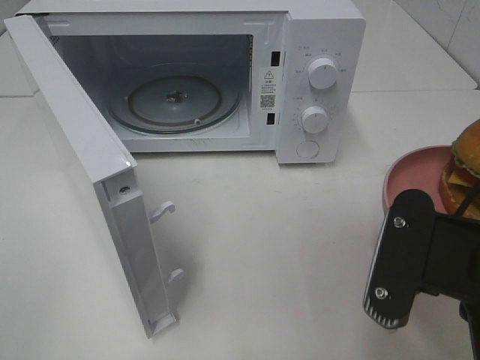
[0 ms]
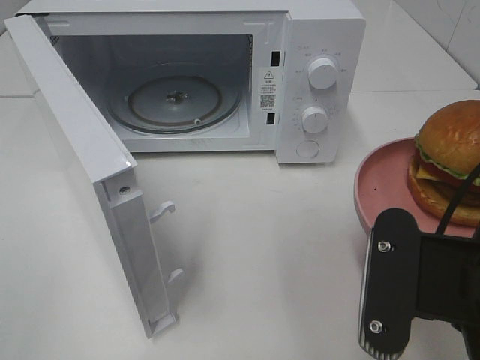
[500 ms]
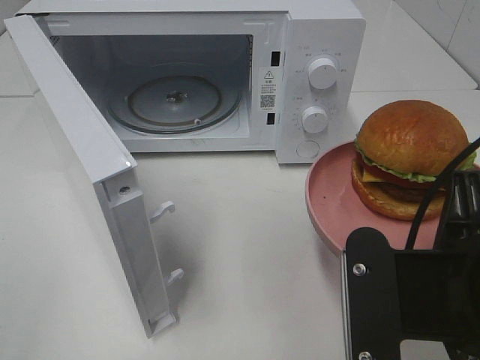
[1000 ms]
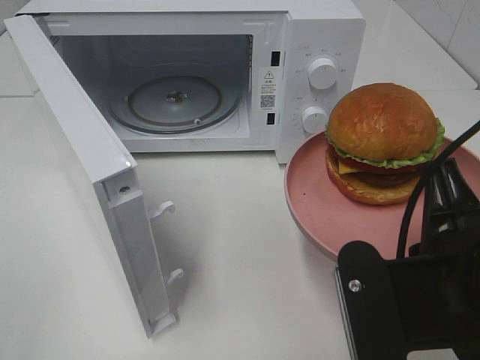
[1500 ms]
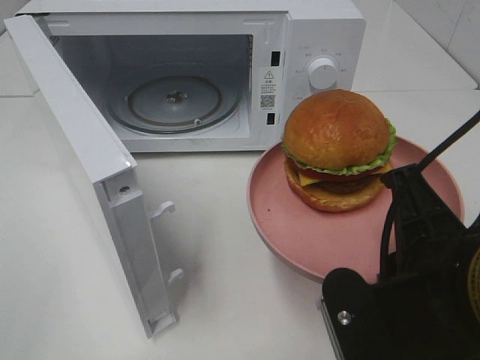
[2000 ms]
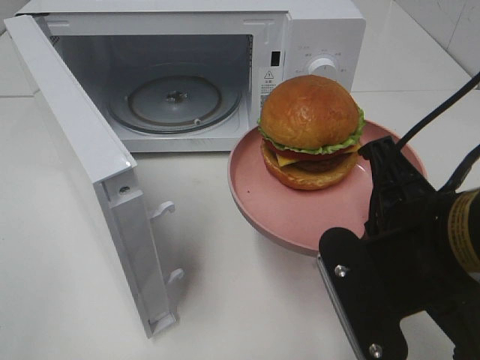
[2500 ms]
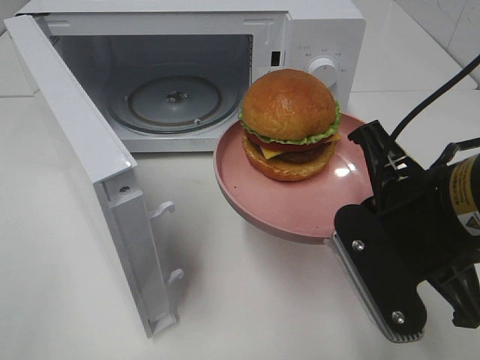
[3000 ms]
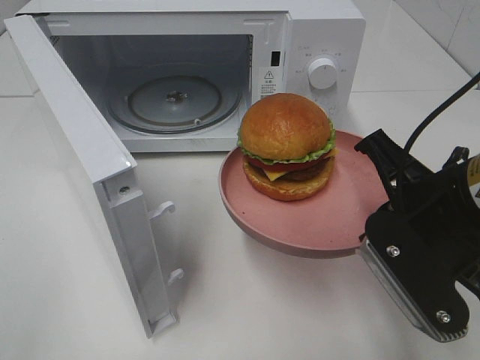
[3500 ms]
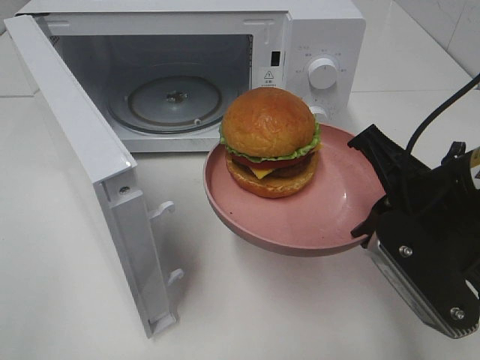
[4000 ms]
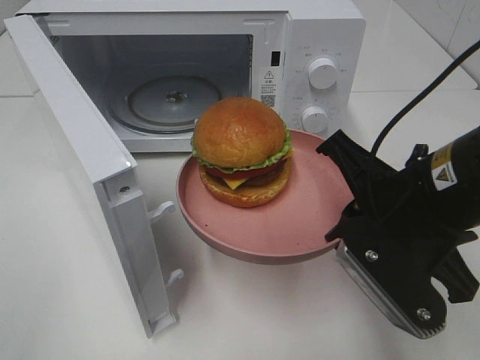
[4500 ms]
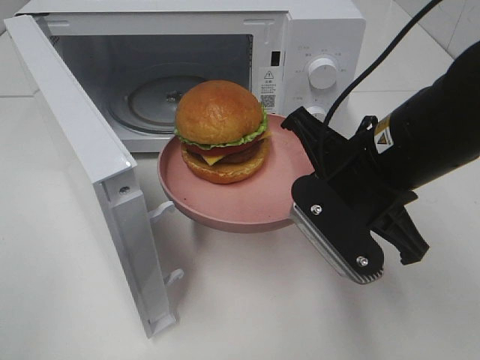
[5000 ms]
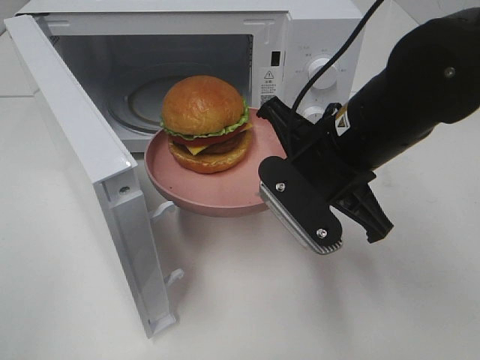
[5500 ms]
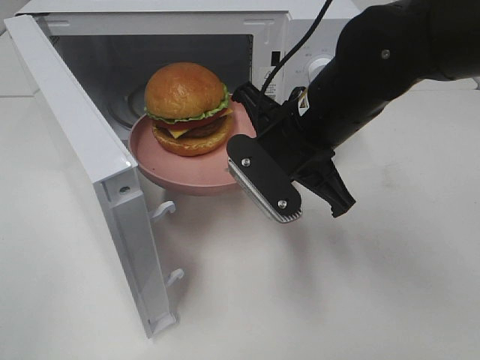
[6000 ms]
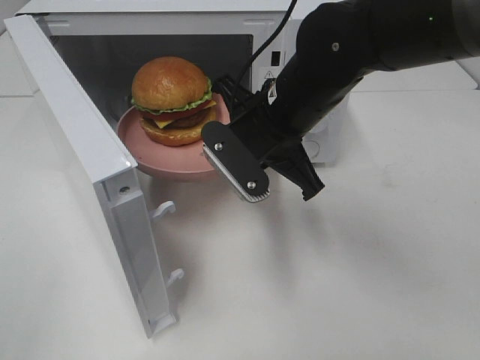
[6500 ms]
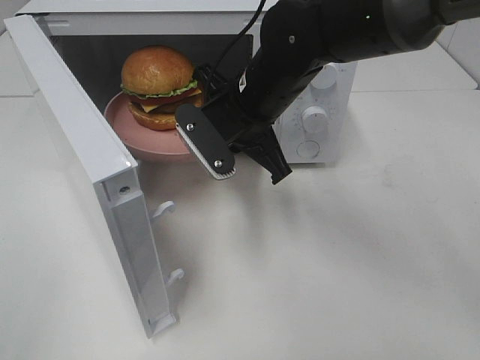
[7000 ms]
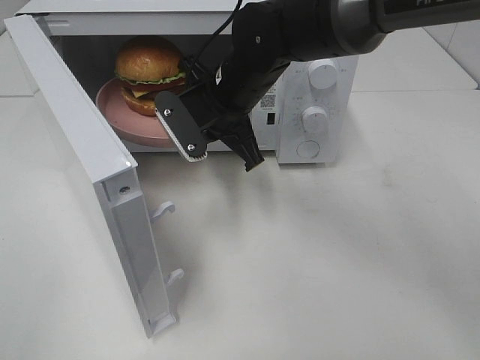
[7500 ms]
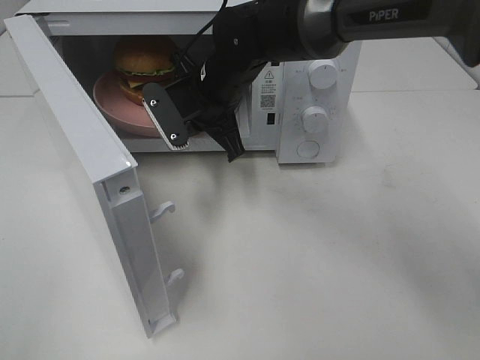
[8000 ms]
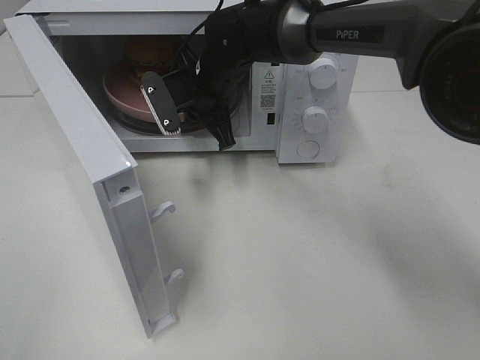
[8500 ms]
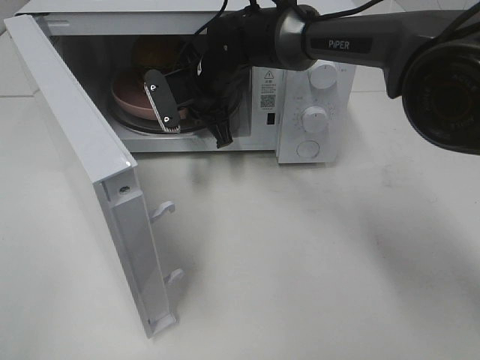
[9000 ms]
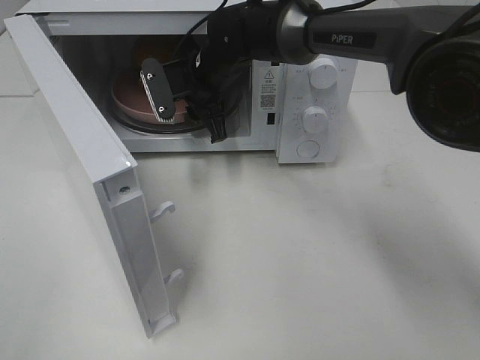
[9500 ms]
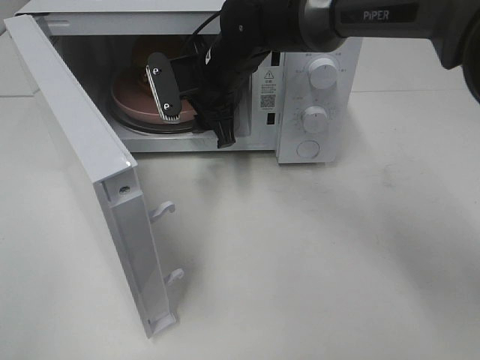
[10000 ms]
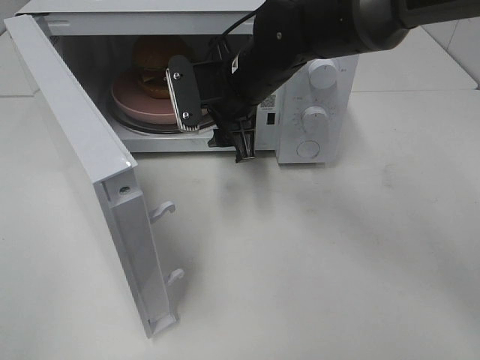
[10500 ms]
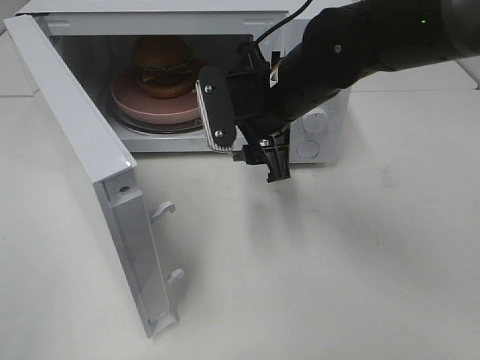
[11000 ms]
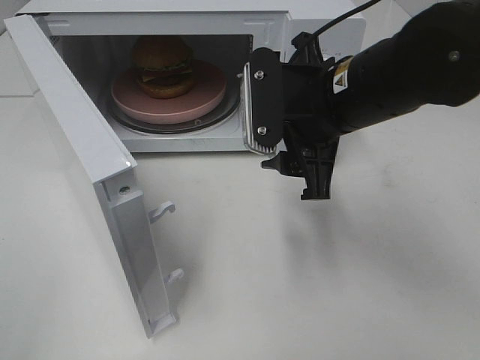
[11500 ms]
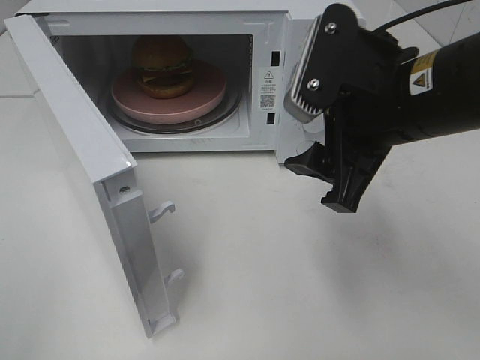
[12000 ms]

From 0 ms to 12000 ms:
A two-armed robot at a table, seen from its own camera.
Task of the whole recording: Heat the burger.
Step, from 0 ms to 9000 ms: Right hand: place the plate in the microwave.
From 2000 ms to 4000 ms: The right gripper goes approximately 10 cm forward.
From 4000 ms to 6000 ms: The right gripper goes about 15 cm forward and to the left.
From 6000 ms to 8000 ms: The right gripper travels forward and to the left by about 15 cm.
From 8000 ms to 10000 ms: The right gripper opens its fingers.
From 10000 ms to 12000 ms: The right gripper shifts roughly 25 cm backward, to the right and upward.

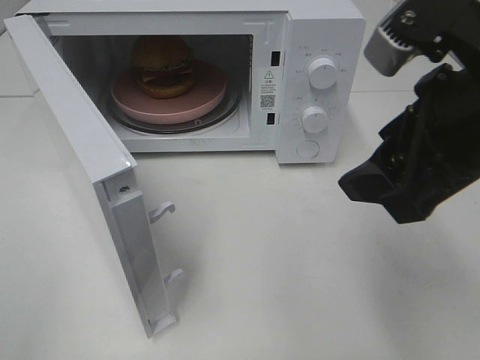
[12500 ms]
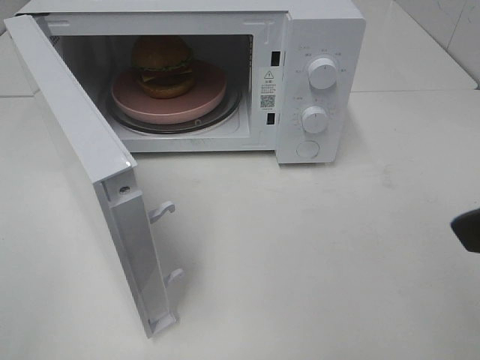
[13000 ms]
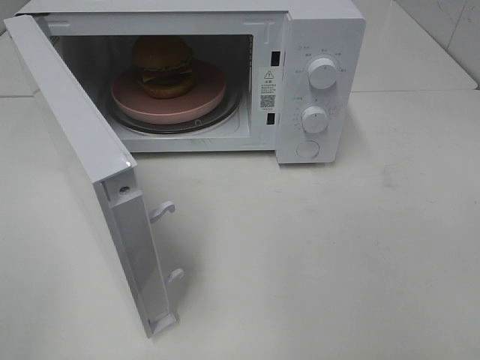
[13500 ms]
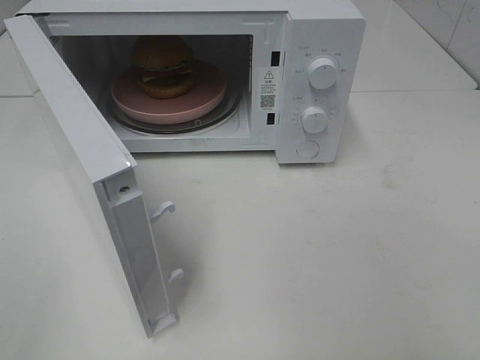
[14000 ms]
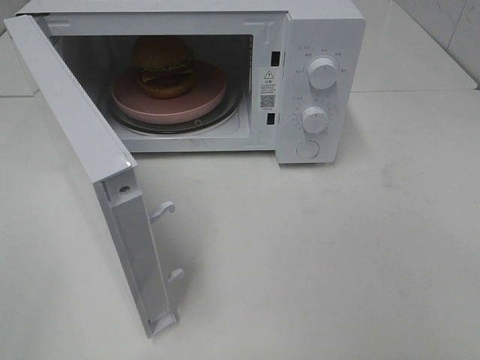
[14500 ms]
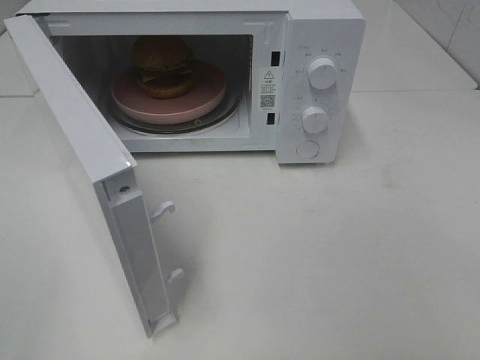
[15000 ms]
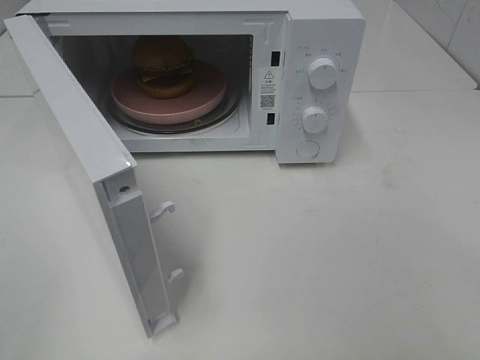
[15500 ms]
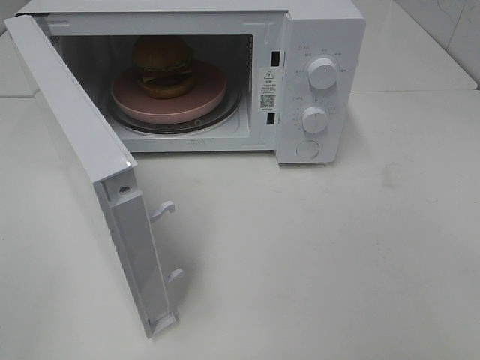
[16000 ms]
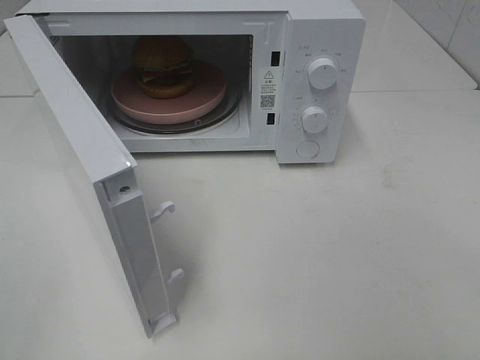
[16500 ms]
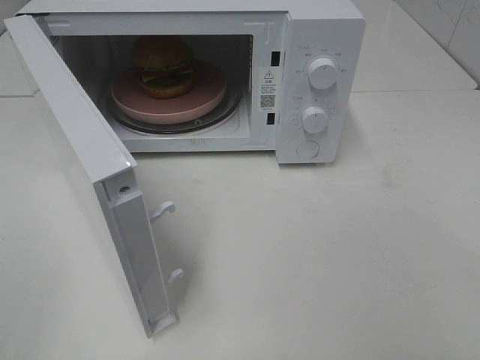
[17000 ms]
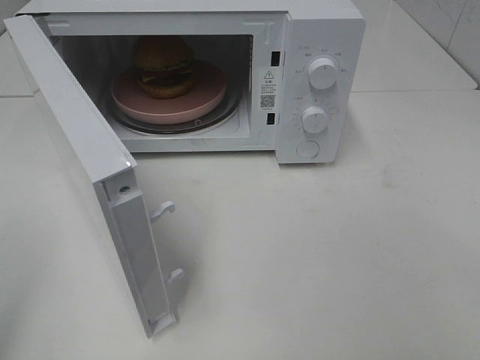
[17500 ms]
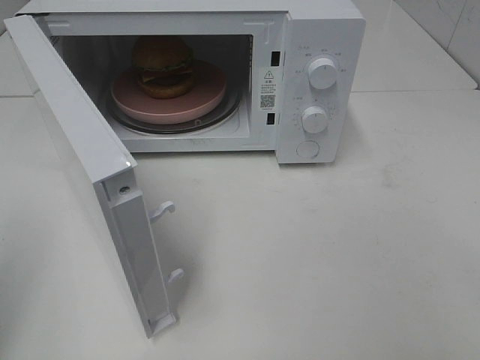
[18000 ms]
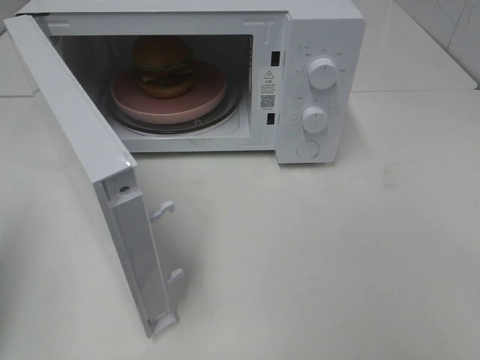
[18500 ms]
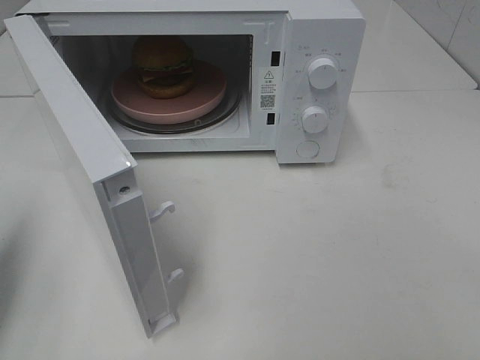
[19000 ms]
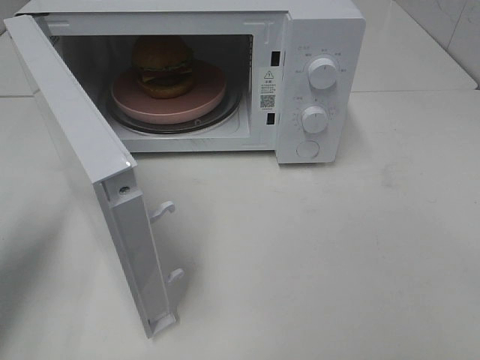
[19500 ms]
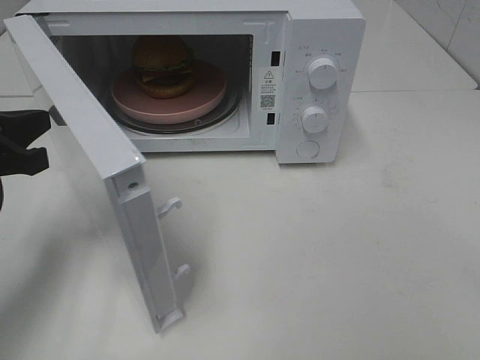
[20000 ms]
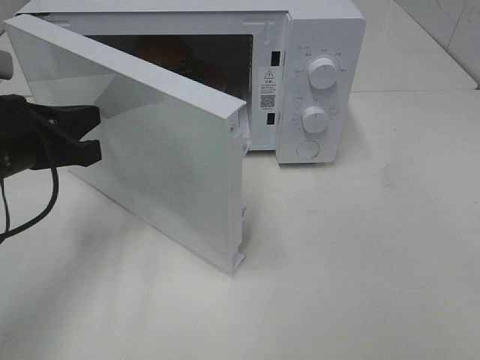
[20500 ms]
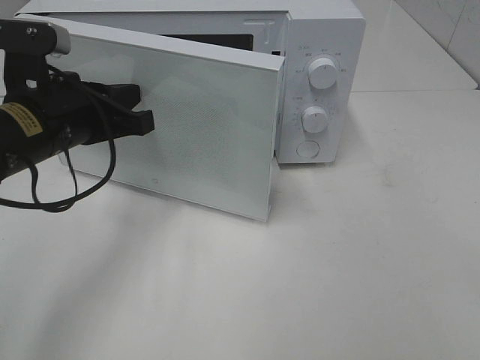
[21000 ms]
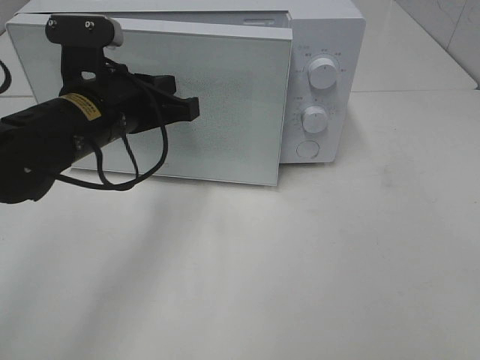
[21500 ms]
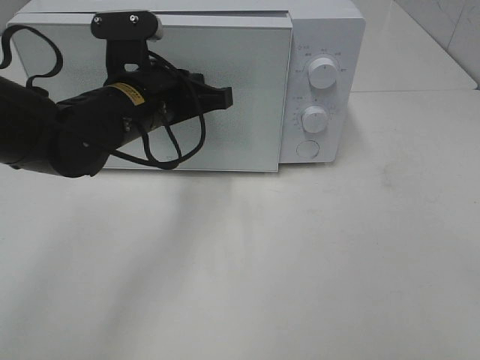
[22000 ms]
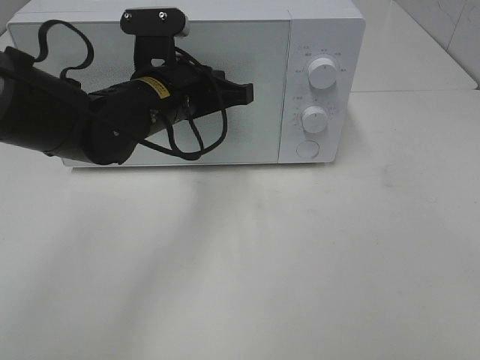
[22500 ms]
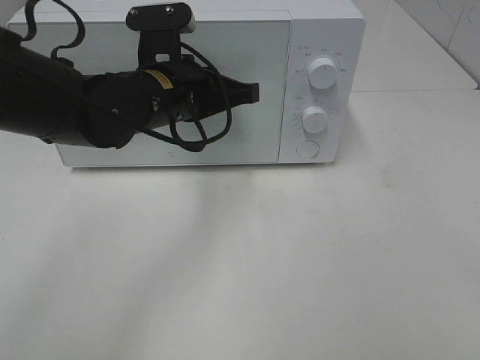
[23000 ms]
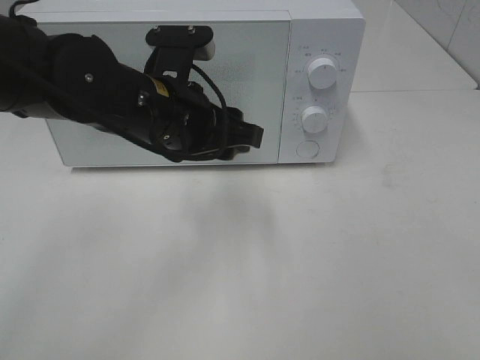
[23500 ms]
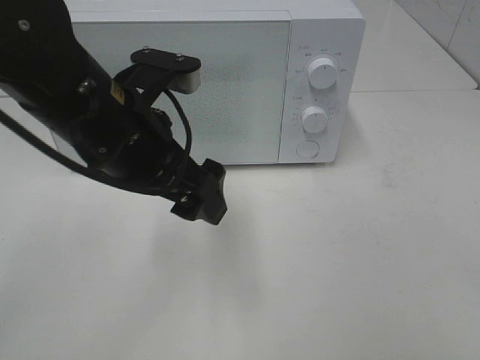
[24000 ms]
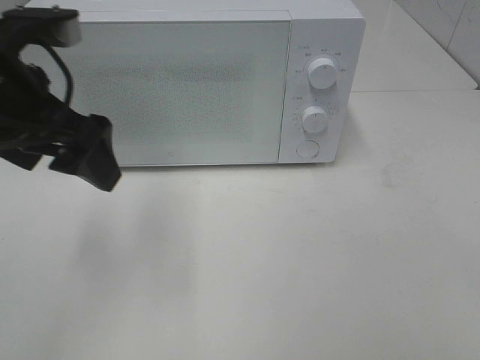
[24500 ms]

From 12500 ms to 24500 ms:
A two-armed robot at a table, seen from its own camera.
Task of the whole recording: Heat the burger.
Step, from 12500 ms to 23000 ms: Left hand: close the microwave door.
From 12500 ms to 14500 ms: The right gripper travels backward and to the right by some 20 cm.
From 16500 ms to 18500 ms: The left gripper travels forward by roughly 15 cm, and closes.
From 18500 ms to 20500 ms: The left gripper goes approximately 20 cm forward, to the right and downward.
From 20500 ms to 22500 ms: The left gripper is displaced to the right and forward by approximately 15 cm.
From 22500 ms to 24500 ms: The left gripper is displaced to the left, upward and backward by approximately 20 cm, and opens.

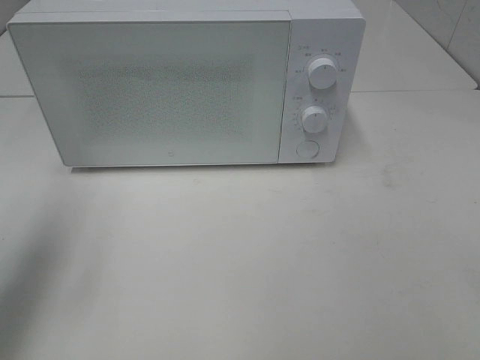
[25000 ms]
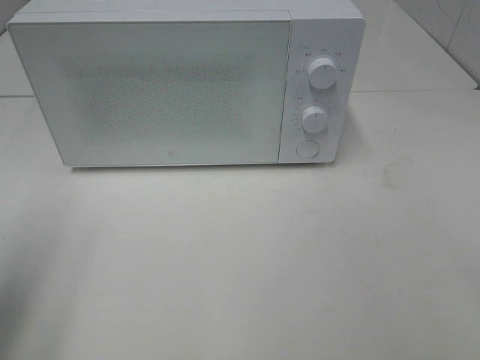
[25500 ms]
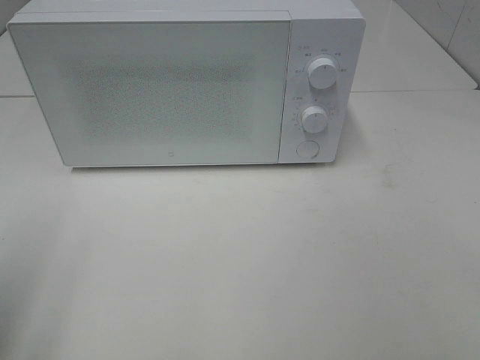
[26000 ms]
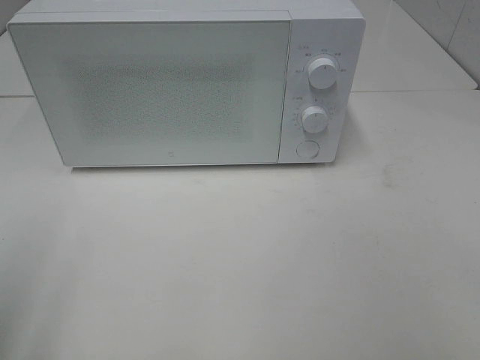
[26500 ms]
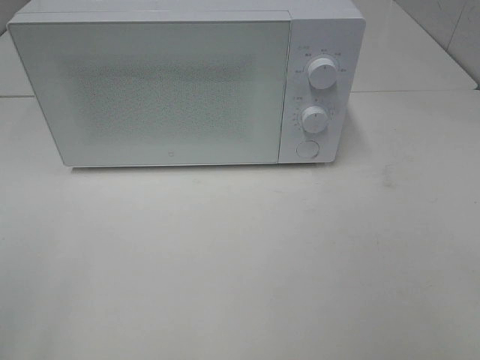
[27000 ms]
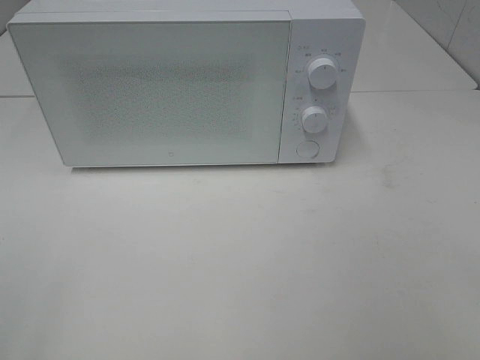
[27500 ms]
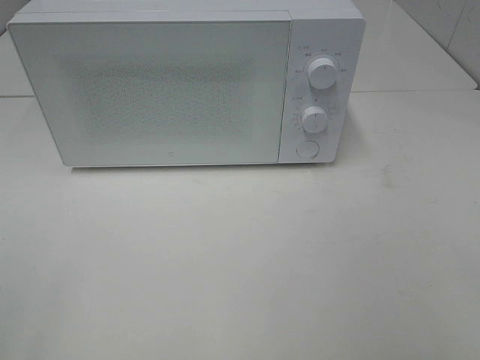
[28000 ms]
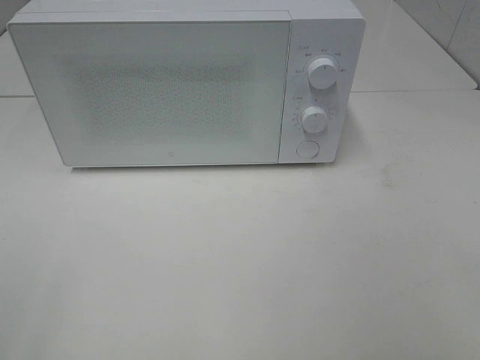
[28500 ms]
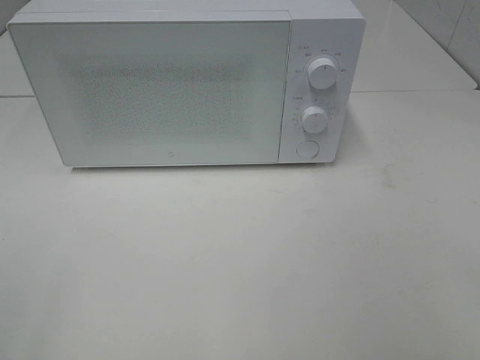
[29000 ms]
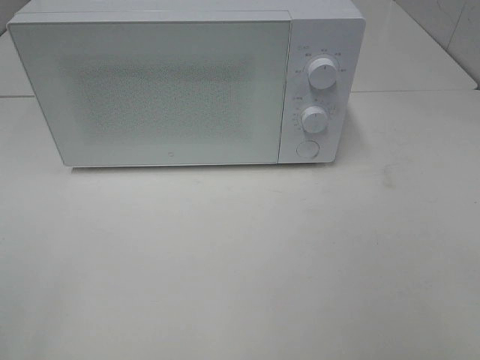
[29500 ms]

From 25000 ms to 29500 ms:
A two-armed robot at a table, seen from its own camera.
Task of the whole recording: Heat the burger.
From 25000 ms to 27000 ms: The left gripper heads backward, covering about 20 cm.
